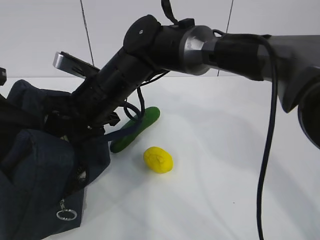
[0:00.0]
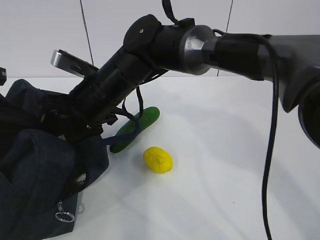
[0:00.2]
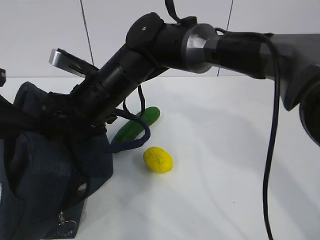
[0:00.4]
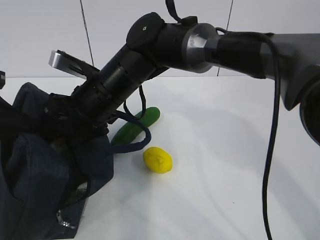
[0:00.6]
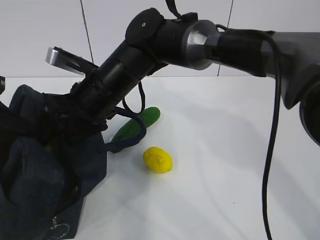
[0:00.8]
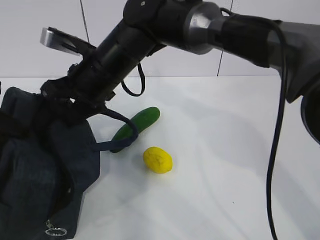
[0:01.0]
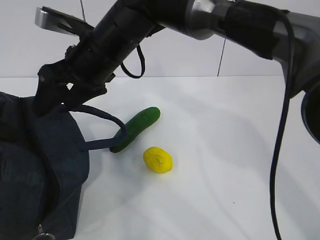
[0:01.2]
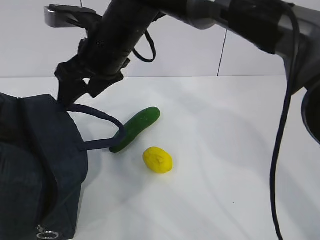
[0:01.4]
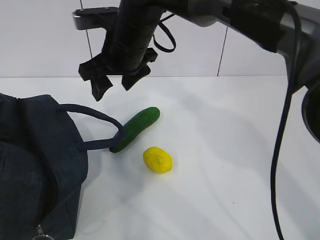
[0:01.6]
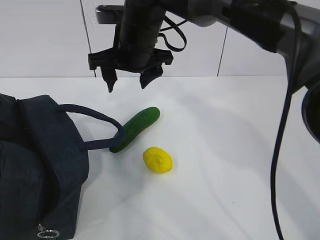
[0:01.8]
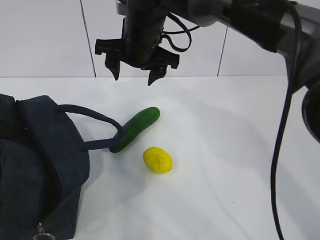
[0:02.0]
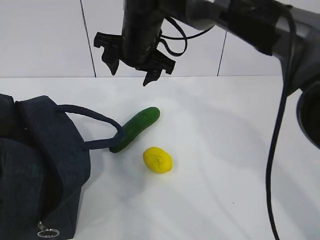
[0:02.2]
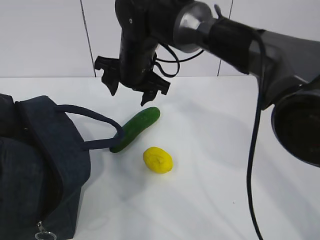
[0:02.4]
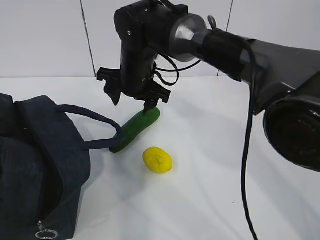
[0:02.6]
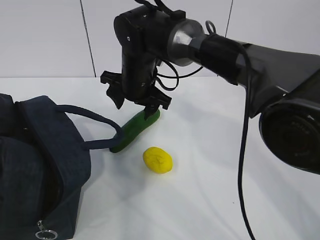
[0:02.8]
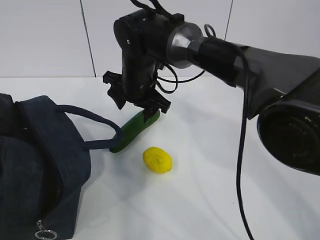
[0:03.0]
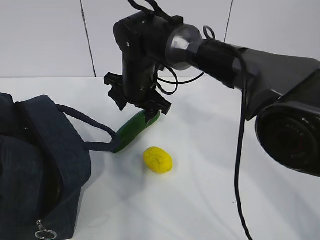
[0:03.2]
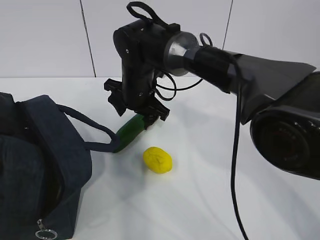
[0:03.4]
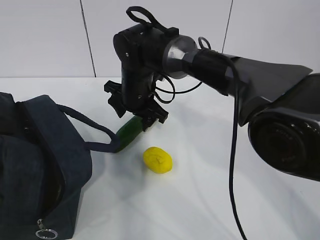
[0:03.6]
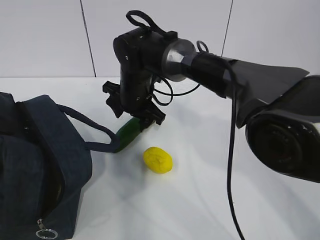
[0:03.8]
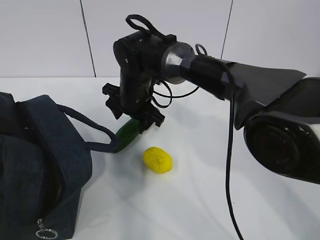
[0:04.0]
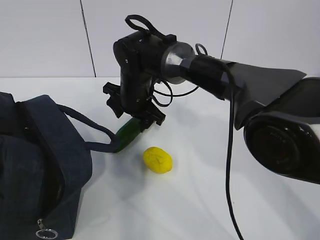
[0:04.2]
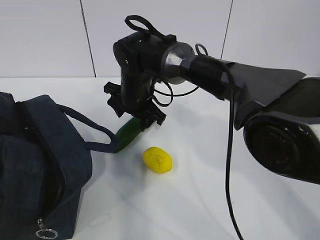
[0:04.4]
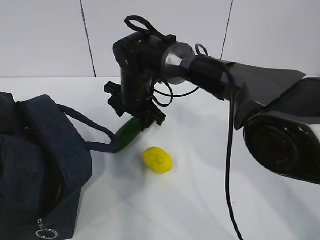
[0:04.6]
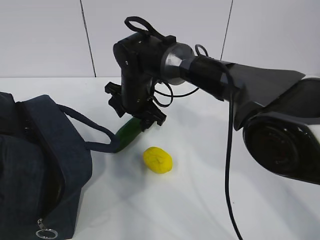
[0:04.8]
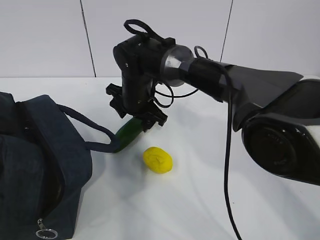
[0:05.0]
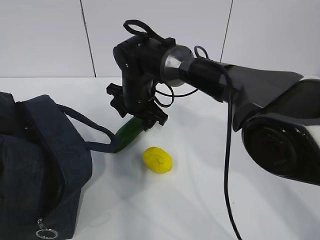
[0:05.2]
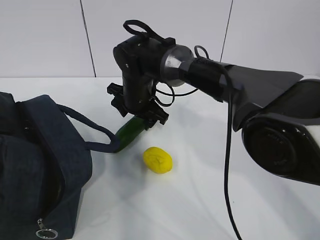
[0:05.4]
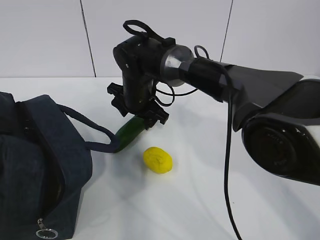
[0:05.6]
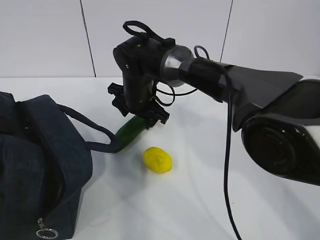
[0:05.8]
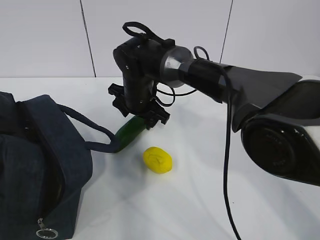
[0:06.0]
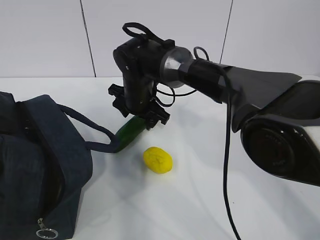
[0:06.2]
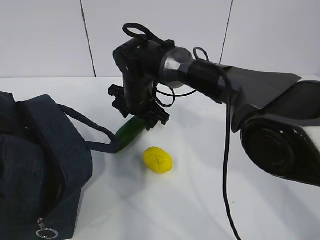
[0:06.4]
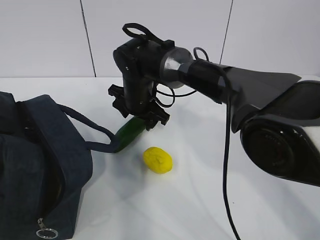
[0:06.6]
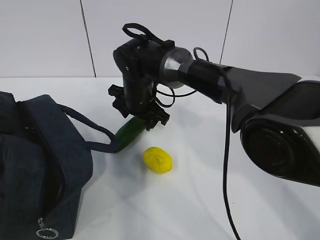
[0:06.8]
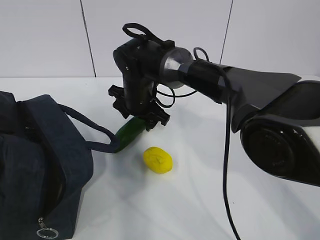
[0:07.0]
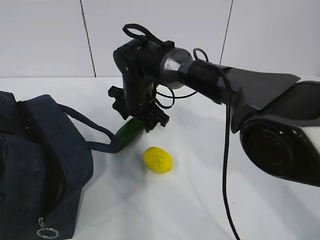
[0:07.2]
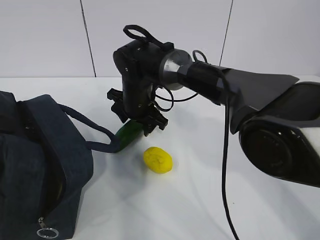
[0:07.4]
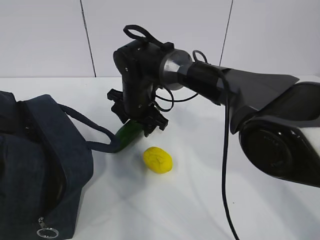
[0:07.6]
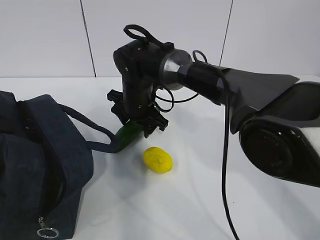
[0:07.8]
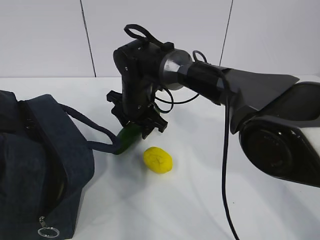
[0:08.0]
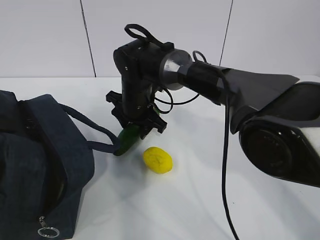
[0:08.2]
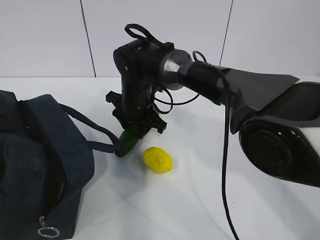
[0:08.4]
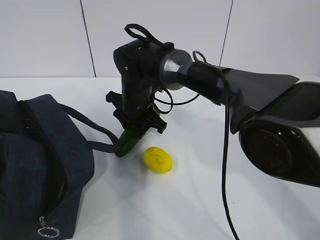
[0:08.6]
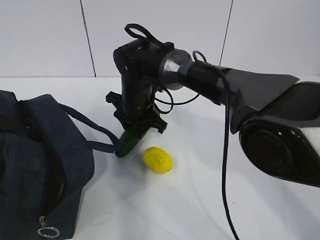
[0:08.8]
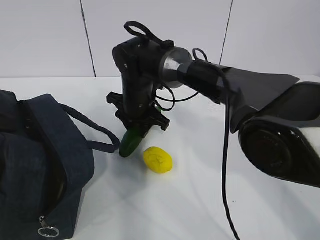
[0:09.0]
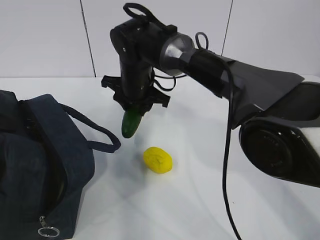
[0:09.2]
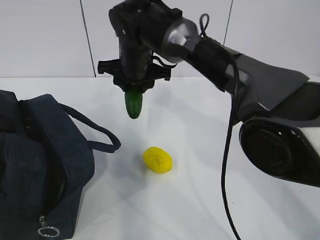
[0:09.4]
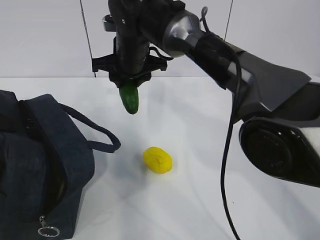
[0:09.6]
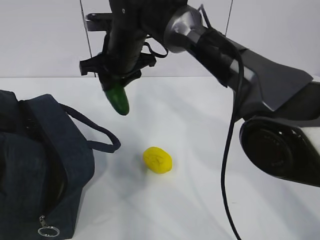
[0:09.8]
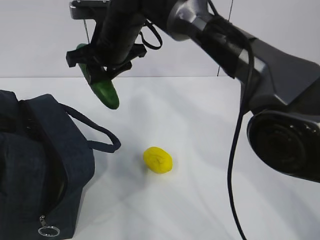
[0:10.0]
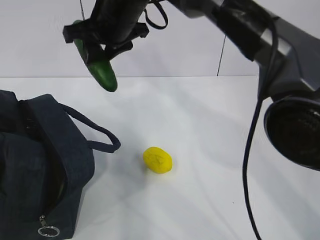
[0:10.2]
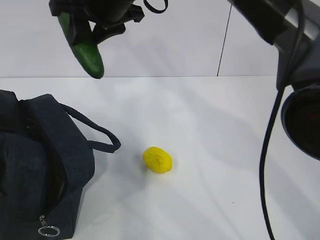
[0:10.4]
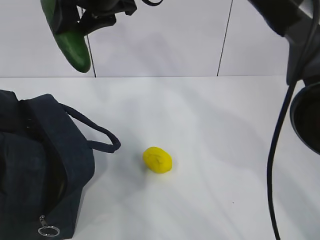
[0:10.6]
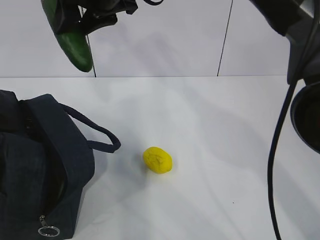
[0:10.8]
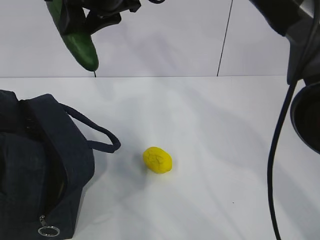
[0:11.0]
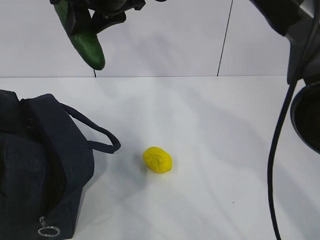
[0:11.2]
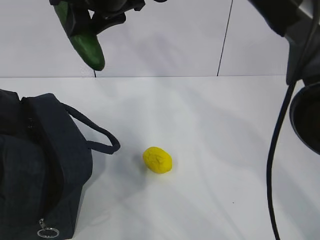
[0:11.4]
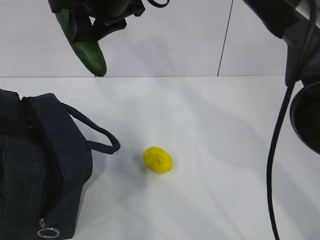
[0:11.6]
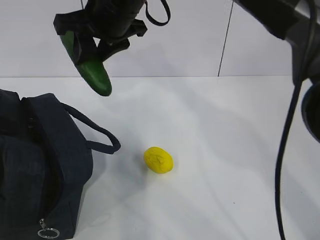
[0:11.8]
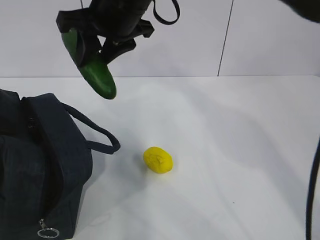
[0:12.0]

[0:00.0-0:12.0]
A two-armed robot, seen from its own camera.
Step, 0:00.0 to 0:02.0: Grab the cucumber with your right hand.
Step, 0:02.2 to 0:08.0: Place it into the bag with your right hand.
0:00.0 to 0:01.6: The right gripper is displaced upward by about 5 cm.
0:01.6 to 0:03.0: The right gripper shifts roughly 10 cm downward.
0:03.0 to 0:04.4: There are only small adjustments of the grippers.
0:04.4 to 0:06.0: Both grippers stay about where they are.
0:06.0 to 0:07.6: Both grippers stay put.
0:07.6 to 0:09.0: The right gripper closes up.
0:09.0 to 0:10.4: The right gripper travels upward by roughly 20 cm.
0:10.4 to 0:12.0: The grippers move only a little.

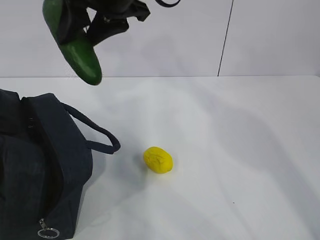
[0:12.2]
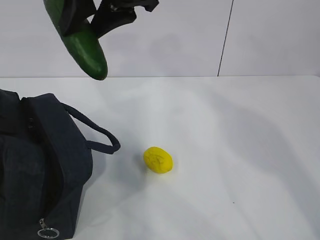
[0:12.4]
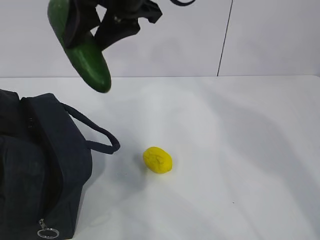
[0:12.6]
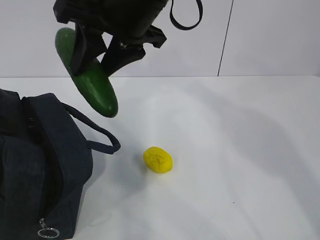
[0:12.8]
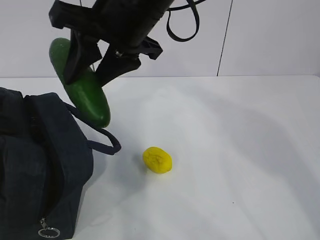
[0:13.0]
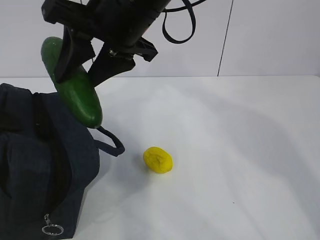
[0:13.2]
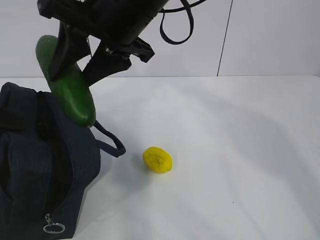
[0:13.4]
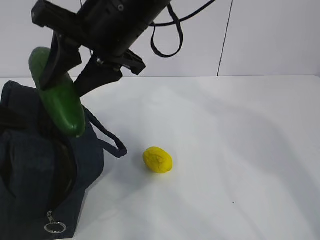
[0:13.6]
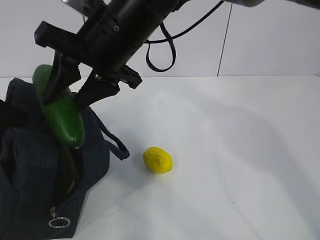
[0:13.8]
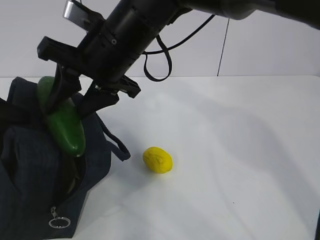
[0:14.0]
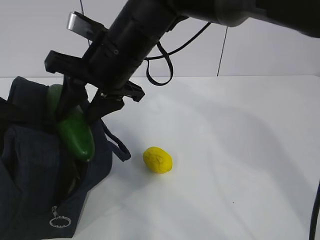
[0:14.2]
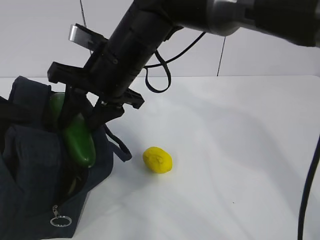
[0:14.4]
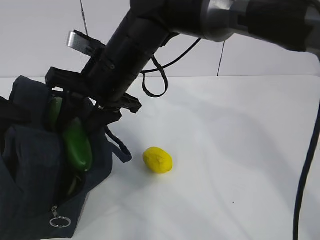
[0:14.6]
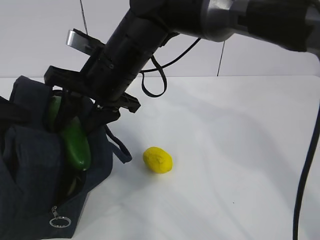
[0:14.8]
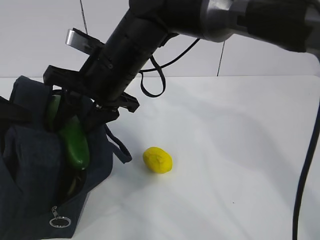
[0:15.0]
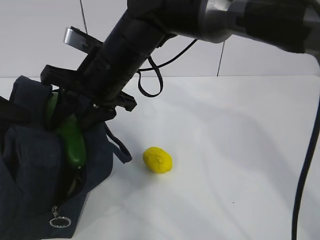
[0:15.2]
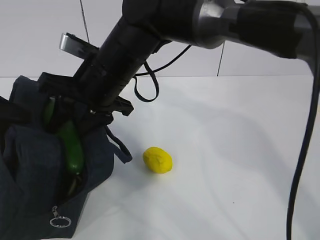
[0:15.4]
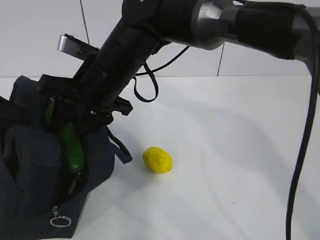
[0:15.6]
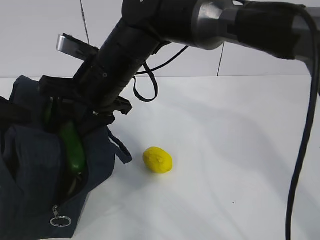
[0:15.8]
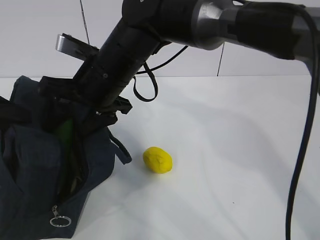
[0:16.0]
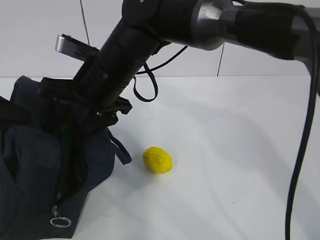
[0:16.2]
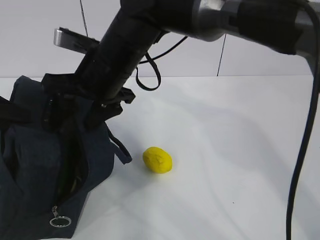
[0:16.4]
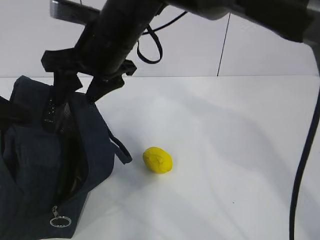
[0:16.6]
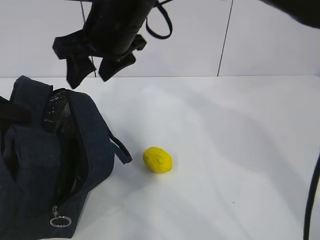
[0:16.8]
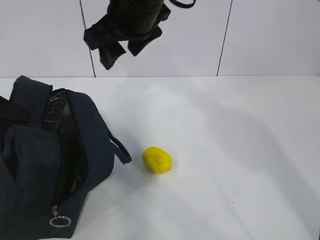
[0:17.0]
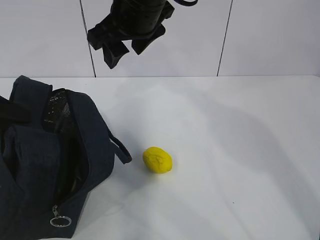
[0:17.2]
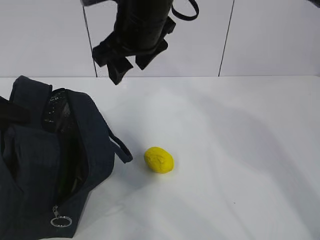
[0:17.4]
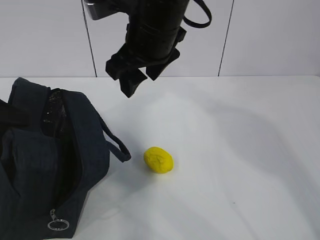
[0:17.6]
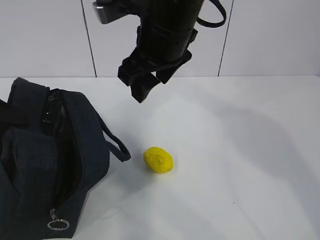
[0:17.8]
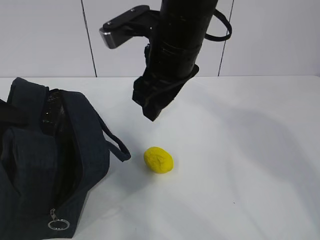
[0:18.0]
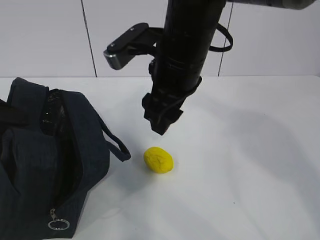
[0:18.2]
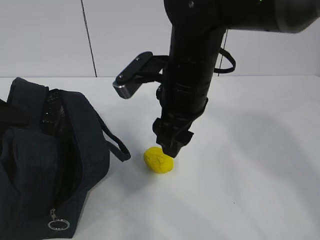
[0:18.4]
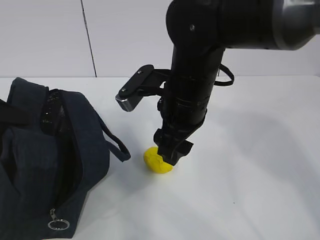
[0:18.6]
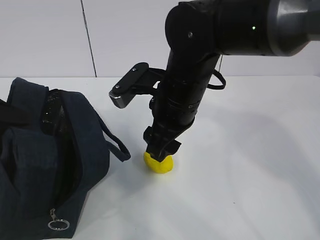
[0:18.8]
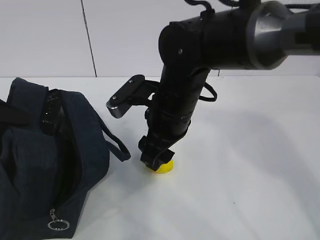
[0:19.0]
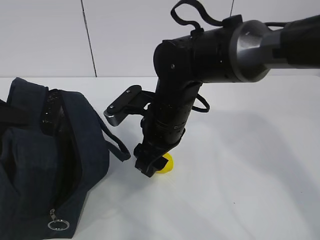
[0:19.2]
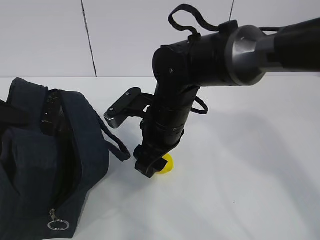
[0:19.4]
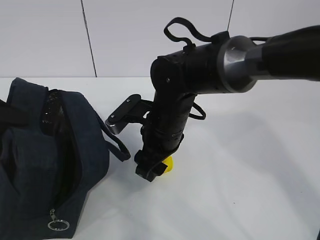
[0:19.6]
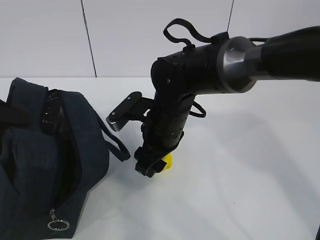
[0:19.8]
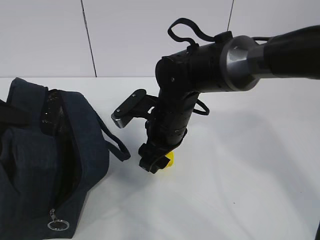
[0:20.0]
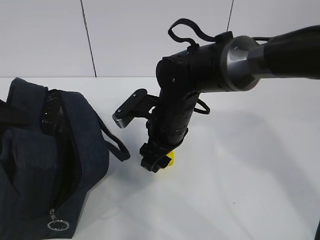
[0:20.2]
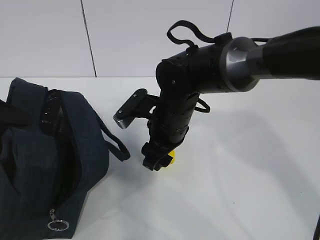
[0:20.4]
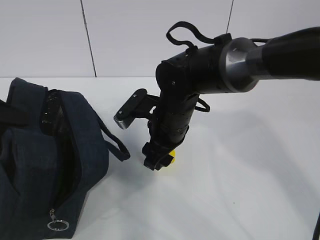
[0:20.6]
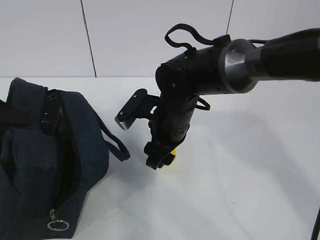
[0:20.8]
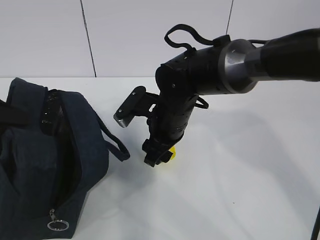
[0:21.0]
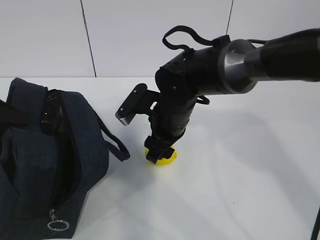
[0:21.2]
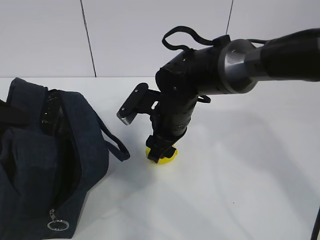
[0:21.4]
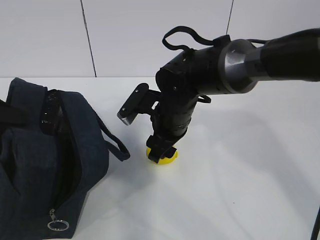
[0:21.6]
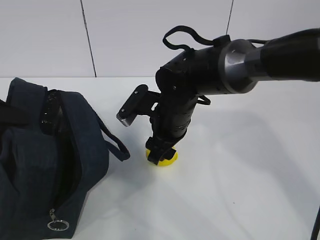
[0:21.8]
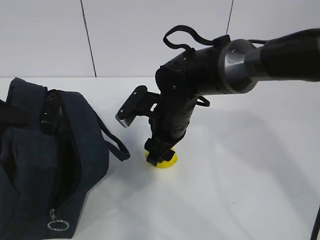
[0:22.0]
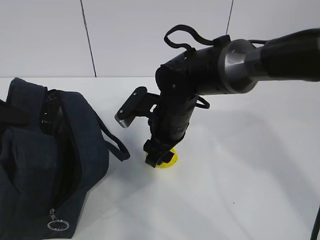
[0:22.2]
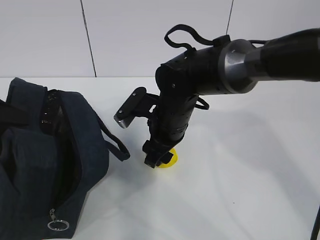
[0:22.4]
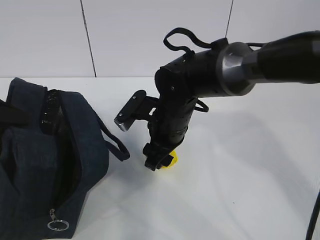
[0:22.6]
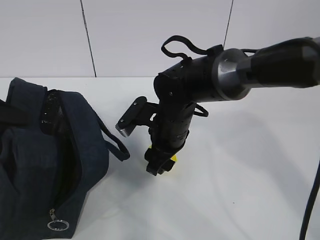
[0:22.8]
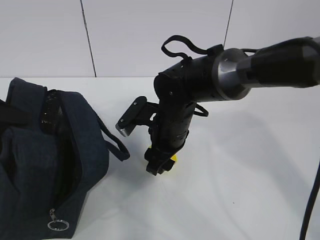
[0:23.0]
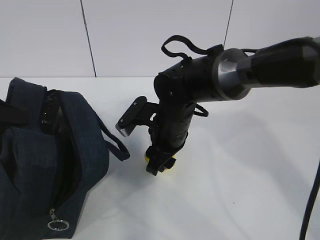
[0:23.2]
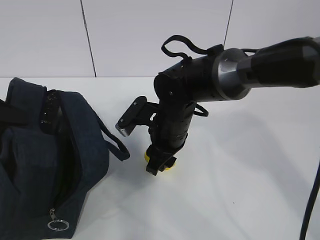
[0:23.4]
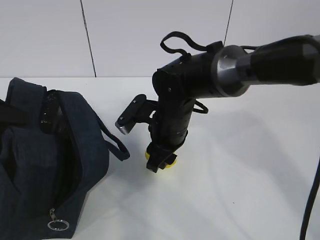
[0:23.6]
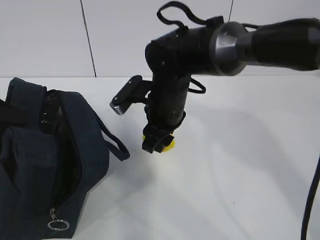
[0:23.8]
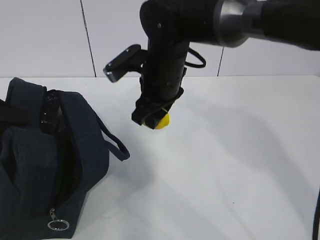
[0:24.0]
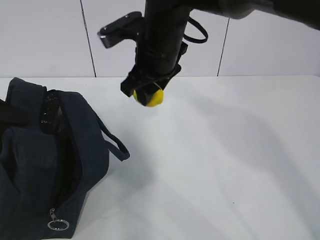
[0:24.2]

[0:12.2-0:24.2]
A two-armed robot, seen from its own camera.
Step, 0:16.8 to 0:19.2: Grab the lunch bag with your right hand.
Step, 0:19.4 to 0:24.0: Move the lunch bag to the right.
0:12.2 to 0:13.8: The right gripper is displaced downward by some 5 cm.
0:13.8 to 0:15.2: The right gripper shifts approximately 5 cm downward.
0:15.2 to 0:16.6: There are only small adjustments of the grippers.
0:16.6 to 0:18.2: The right gripper heads to the right, covering roughly 10 cm.
0:18.2 to 0:19.8: The right gripper is displaced downward by roughly 15 cm.
0:19.8 to 0:21.2: There are only small adjustments of the grippers.
0:21.2 to 0:22.6: Both grippers stay put.
0:22.6 to 0:24.2: The right gripper is displaced upward by about 10 cm.
